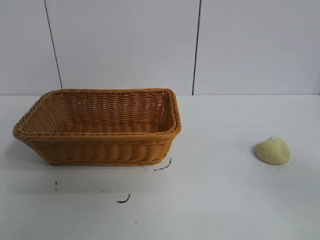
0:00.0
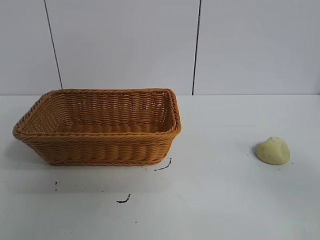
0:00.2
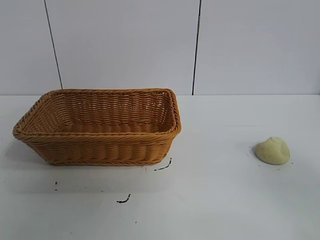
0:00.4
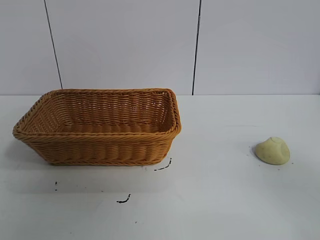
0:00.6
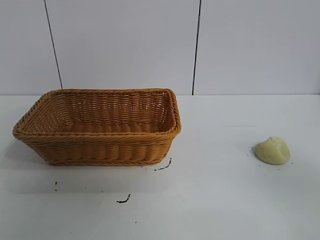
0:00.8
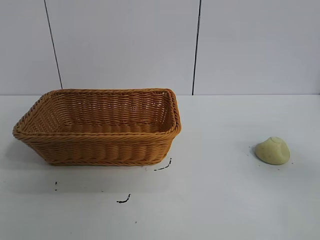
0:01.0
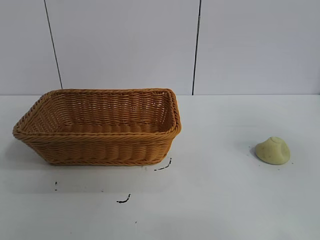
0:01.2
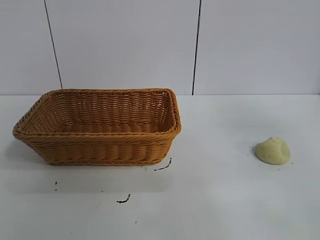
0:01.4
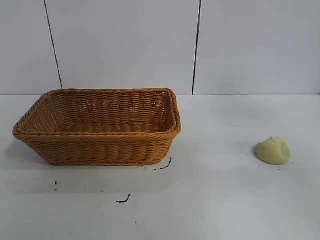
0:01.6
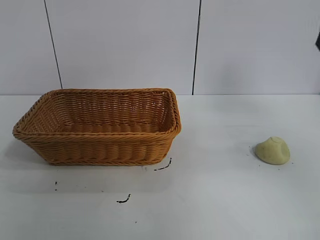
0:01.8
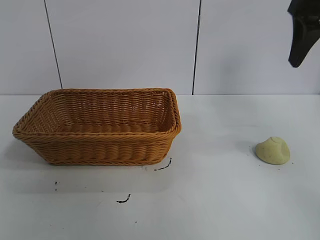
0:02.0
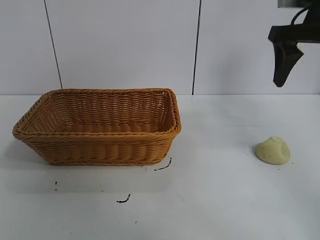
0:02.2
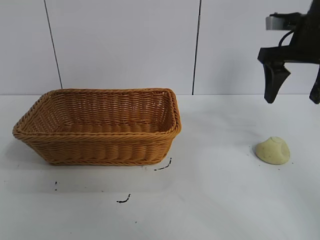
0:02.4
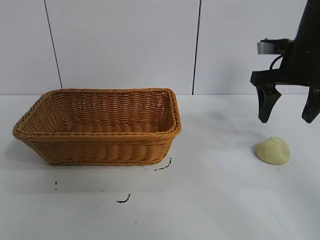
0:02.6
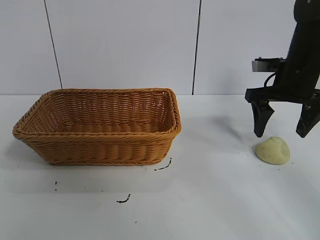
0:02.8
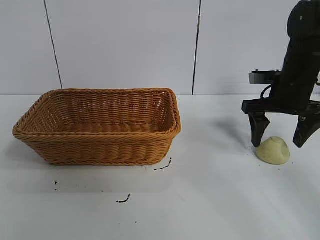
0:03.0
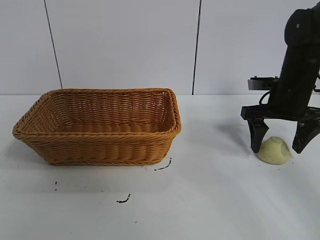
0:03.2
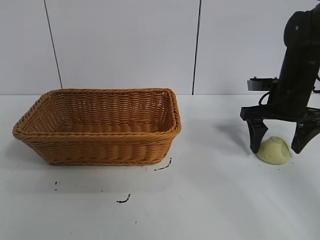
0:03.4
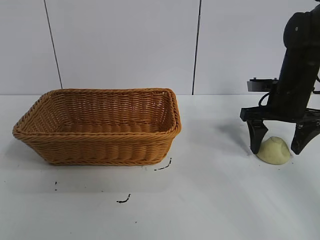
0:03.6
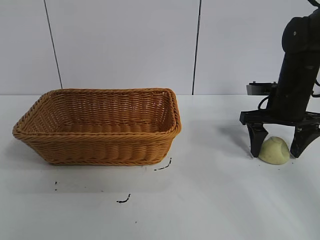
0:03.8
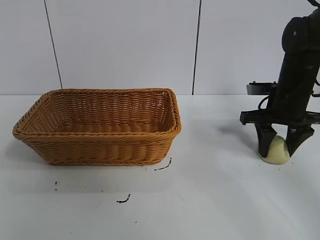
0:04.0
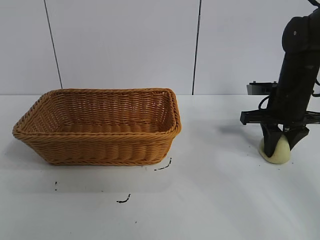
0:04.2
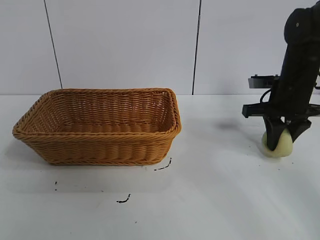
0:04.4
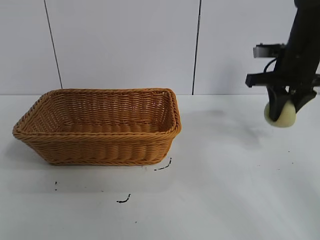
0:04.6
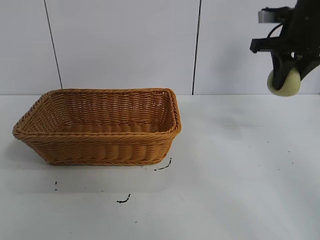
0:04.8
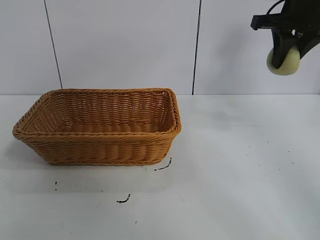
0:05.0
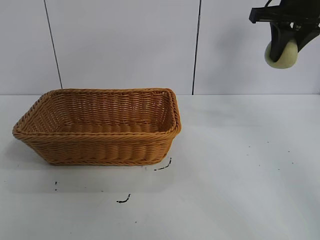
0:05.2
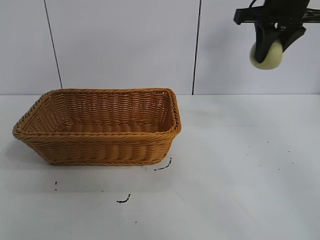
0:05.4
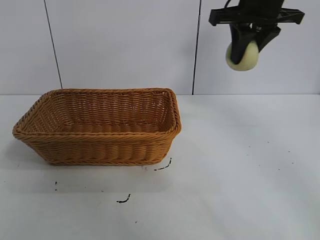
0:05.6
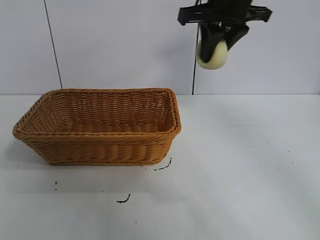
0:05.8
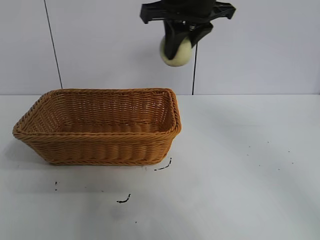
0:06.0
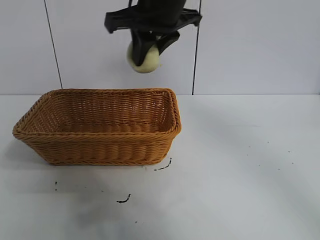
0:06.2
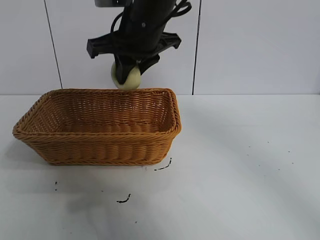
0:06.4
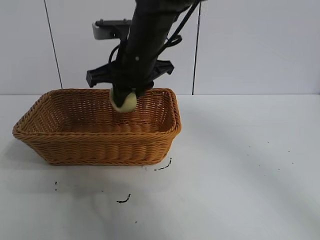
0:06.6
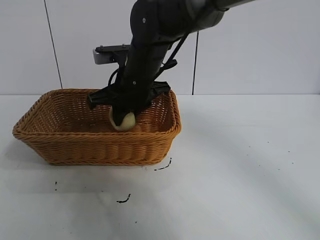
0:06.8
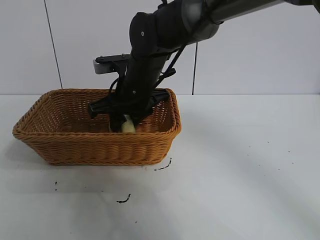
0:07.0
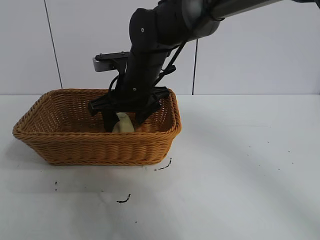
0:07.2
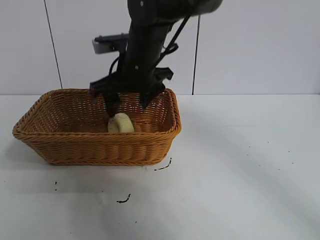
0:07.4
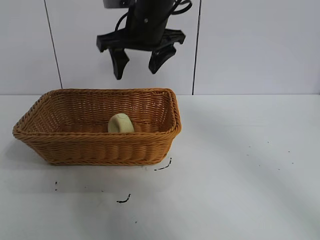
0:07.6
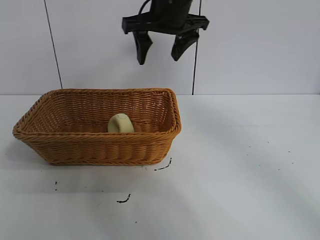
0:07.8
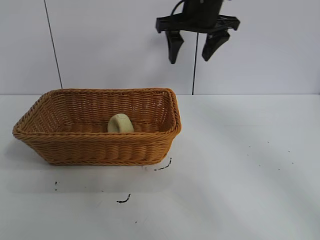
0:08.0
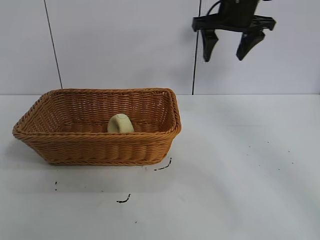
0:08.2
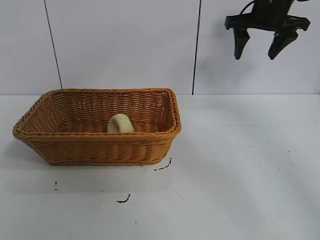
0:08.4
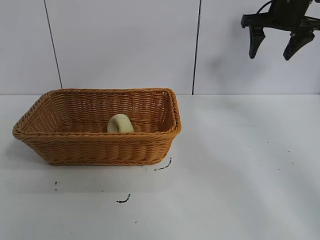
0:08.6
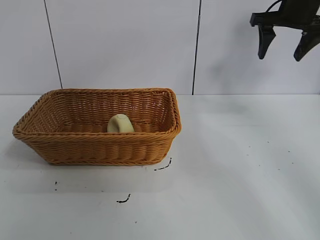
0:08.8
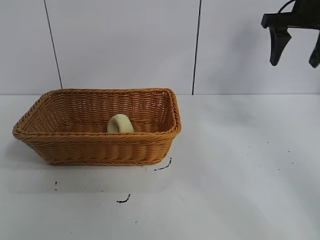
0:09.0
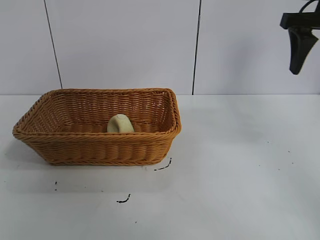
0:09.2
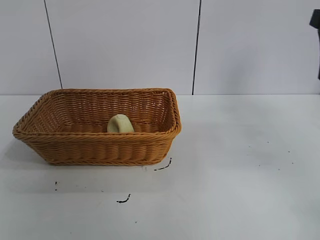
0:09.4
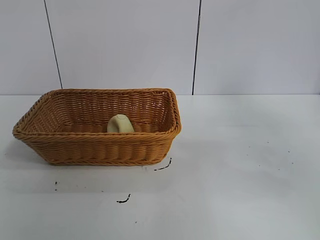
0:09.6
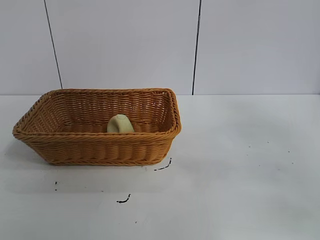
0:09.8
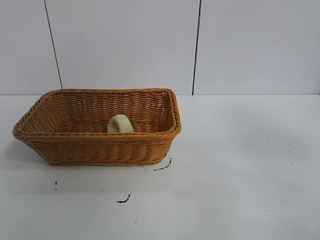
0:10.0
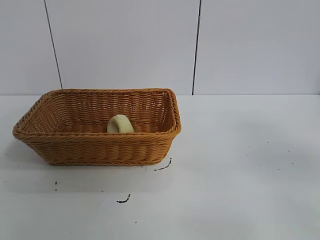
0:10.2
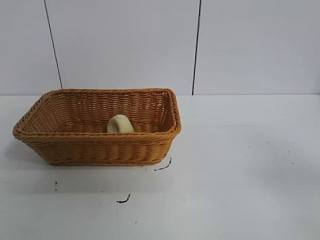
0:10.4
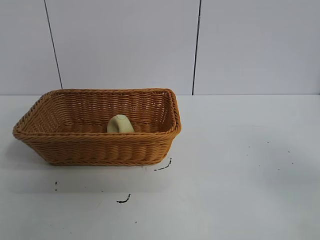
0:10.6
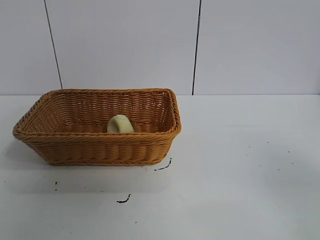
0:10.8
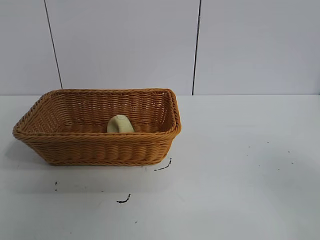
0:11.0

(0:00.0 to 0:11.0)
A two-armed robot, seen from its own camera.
Task of the whole recording: pick up the egg yolk pastry and put it into the basket.
Step, 0:00.8 - 0:04.0: Grasp egg yolk pastry with right gripper.
Step, 0:04.4 - 0:07.0: Place the egg yolk pastry in the basket with right gripper.

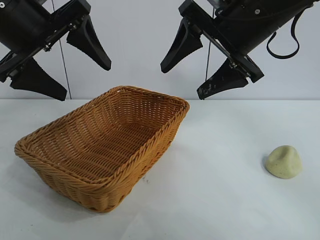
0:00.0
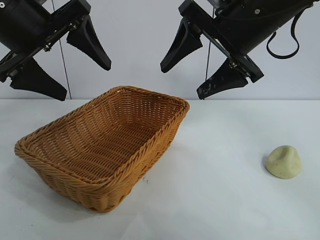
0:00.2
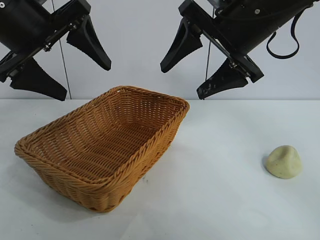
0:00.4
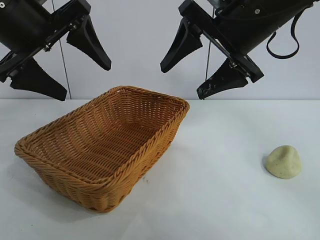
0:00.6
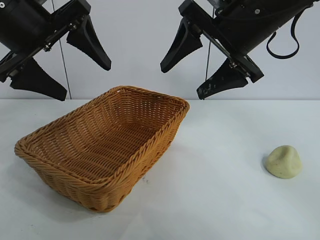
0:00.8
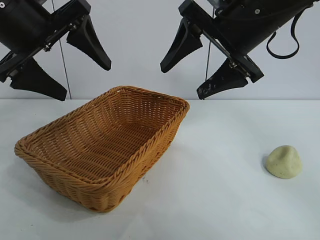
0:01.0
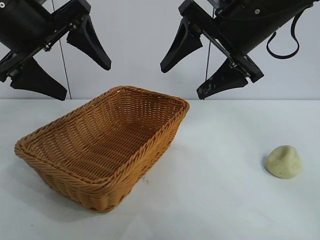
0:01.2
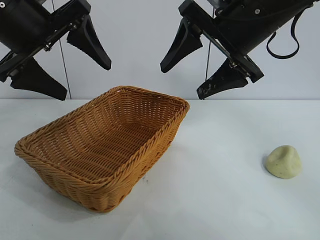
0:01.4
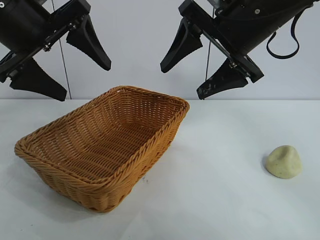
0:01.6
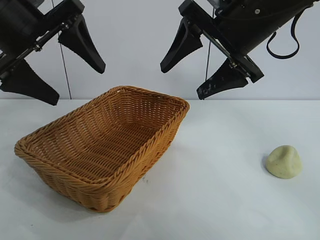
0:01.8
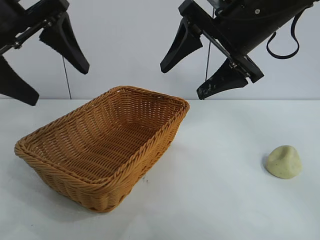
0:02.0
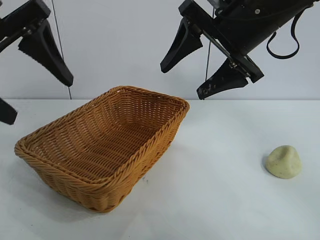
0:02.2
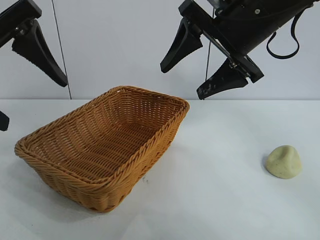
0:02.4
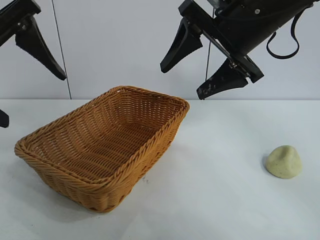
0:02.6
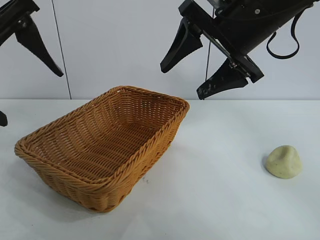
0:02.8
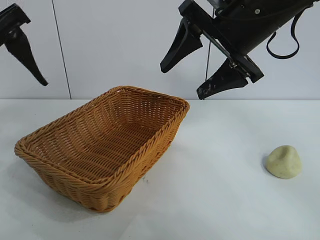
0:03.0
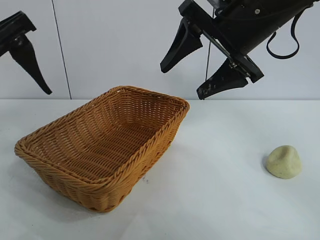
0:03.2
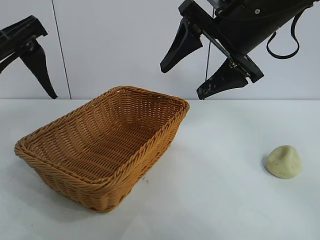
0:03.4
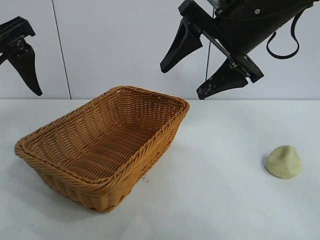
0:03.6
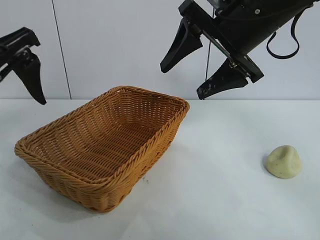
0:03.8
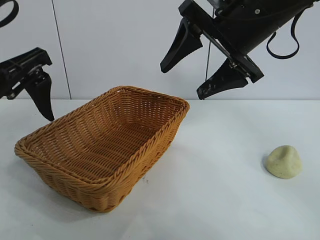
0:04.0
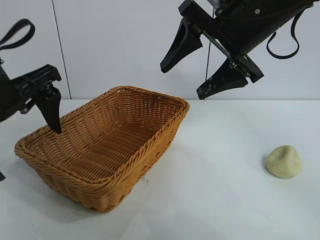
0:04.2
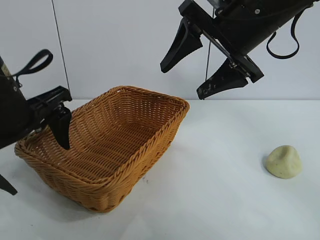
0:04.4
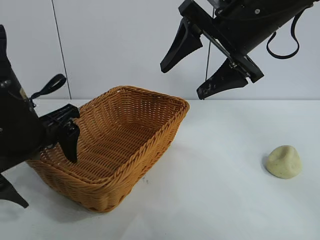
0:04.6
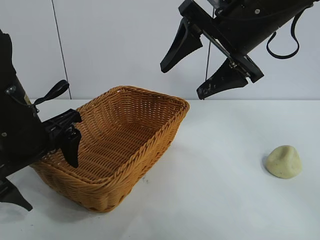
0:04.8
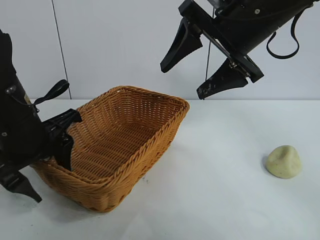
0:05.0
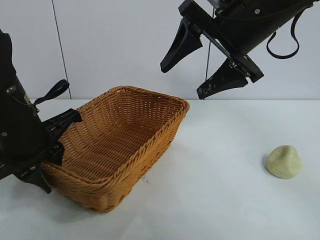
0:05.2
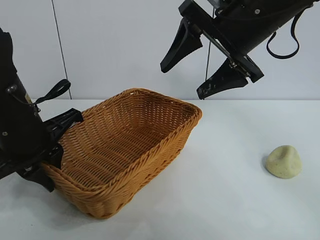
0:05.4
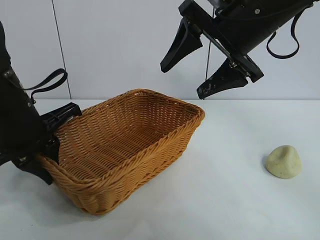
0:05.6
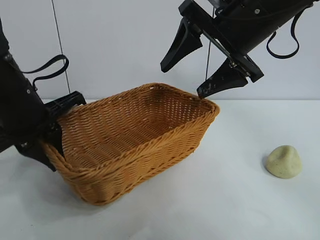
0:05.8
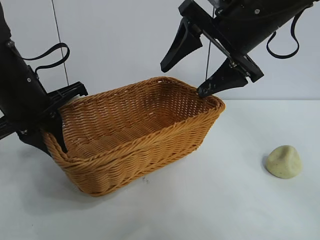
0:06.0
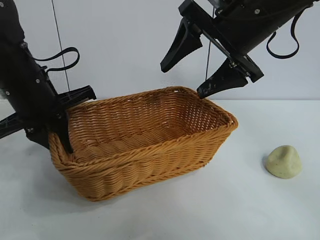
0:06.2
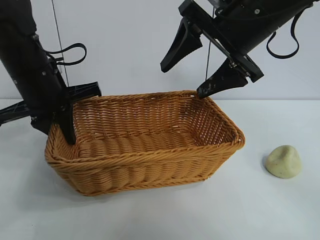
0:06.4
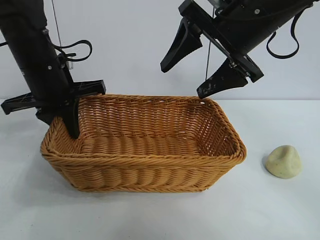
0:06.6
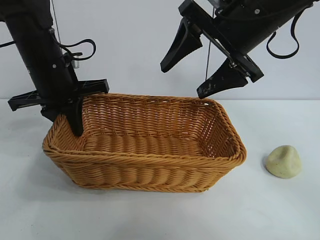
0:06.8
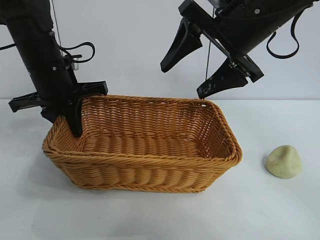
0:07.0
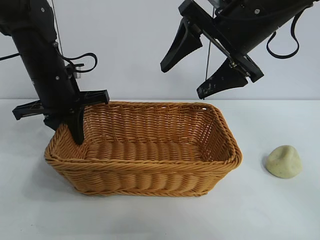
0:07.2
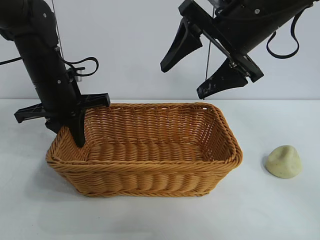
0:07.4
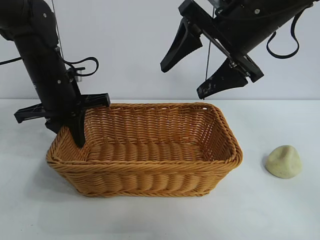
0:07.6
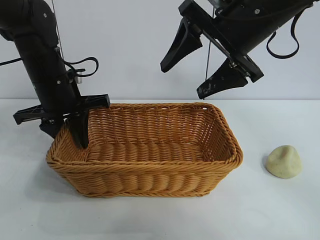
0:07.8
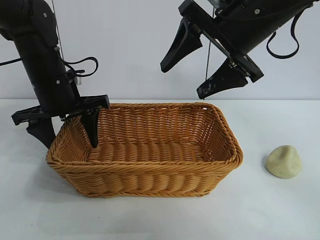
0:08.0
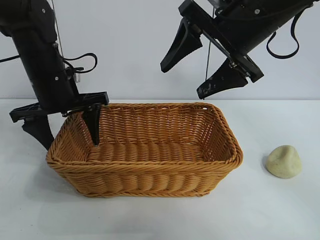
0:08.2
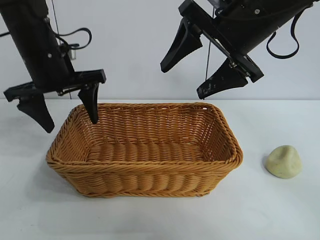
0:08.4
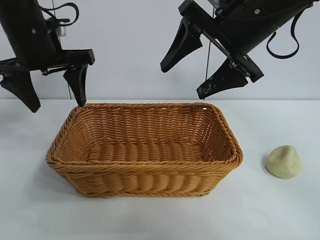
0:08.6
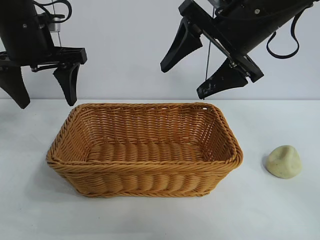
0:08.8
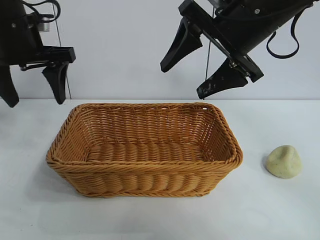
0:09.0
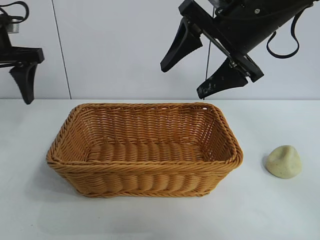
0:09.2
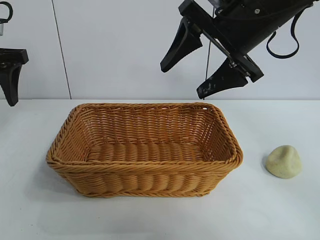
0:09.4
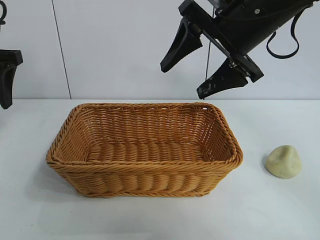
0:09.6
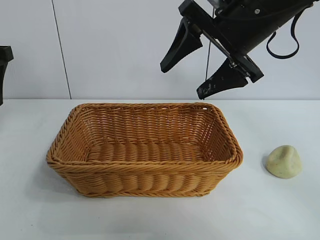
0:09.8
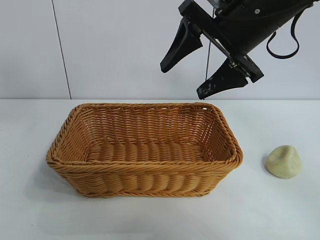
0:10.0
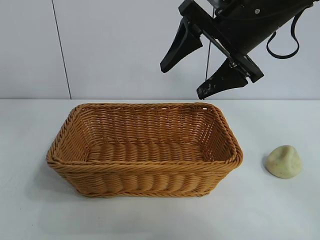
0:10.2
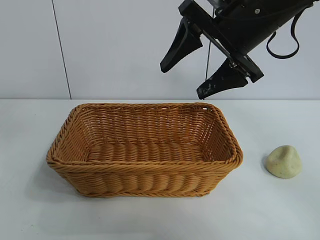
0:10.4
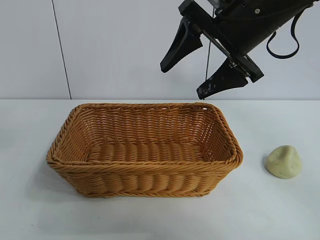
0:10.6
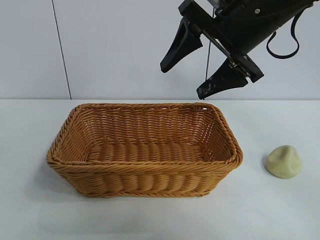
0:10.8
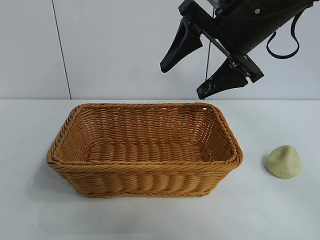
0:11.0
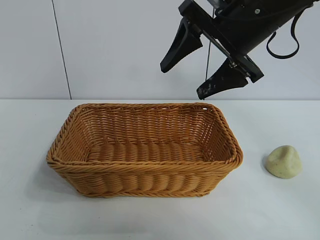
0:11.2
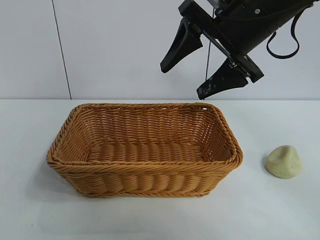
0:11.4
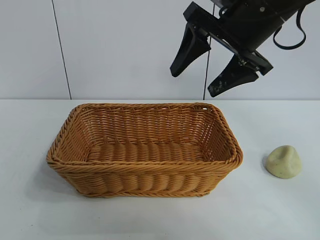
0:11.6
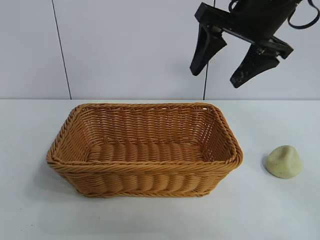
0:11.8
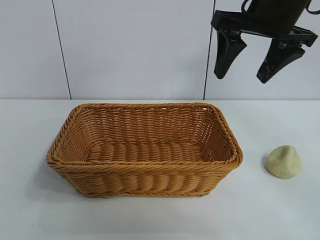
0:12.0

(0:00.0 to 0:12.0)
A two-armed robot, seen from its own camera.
Task of the whole recording: pick up the egg yolk pastry and put it into the basket.
Step, 0:01.6 - 0:05.2: Grasp the basket with left gripper.
Step, 0:05.4 - 0:07.8: Place the basket in the center of view with left gripper.
